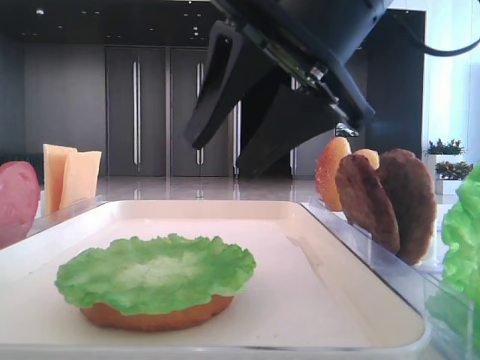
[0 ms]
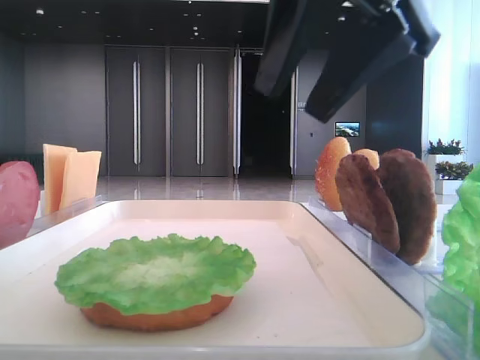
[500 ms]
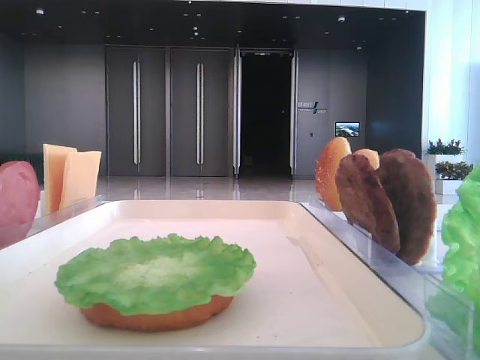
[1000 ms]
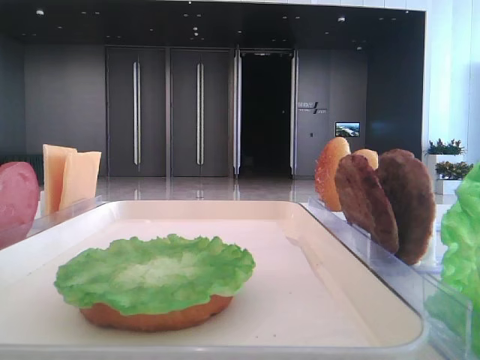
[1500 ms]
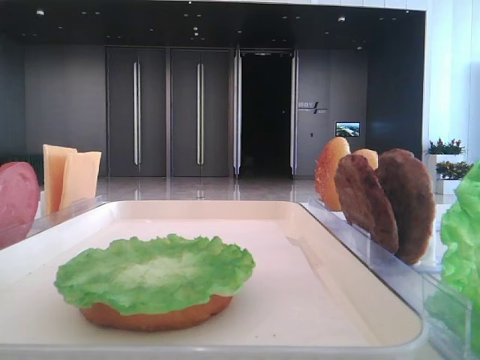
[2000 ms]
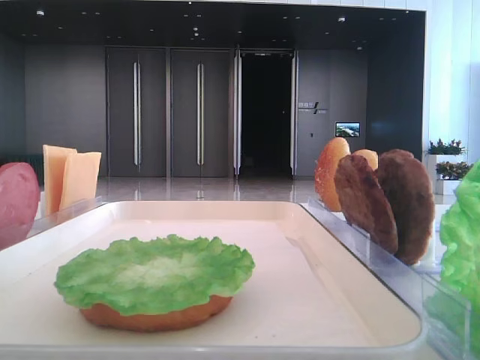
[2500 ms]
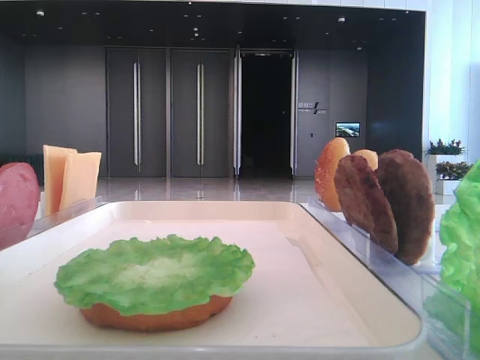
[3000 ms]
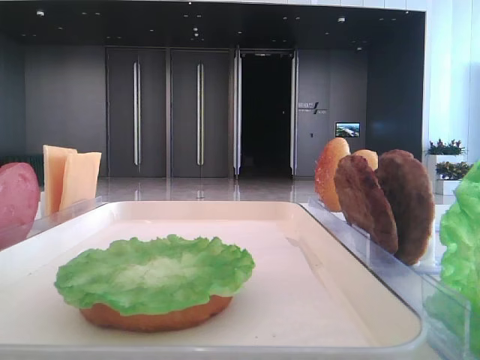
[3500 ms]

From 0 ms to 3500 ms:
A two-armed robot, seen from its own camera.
From 0 ms to 2000 ms: The right gripper heads to the right, covering some 25 cm.

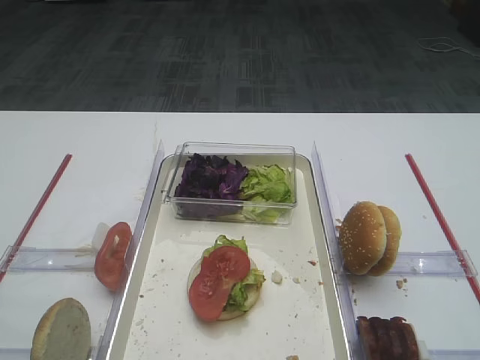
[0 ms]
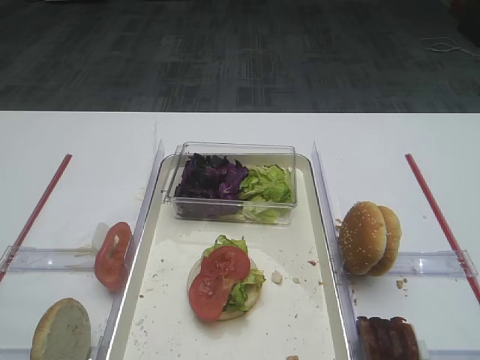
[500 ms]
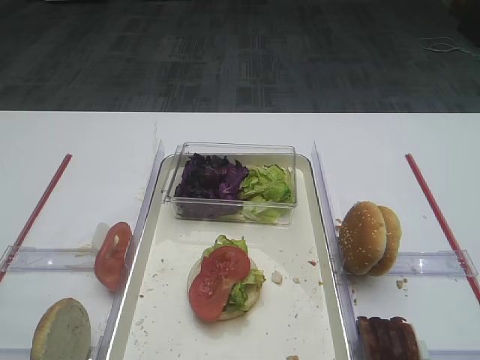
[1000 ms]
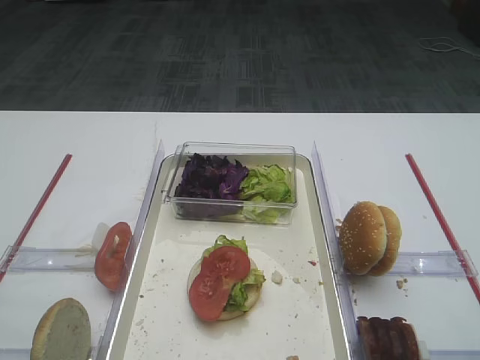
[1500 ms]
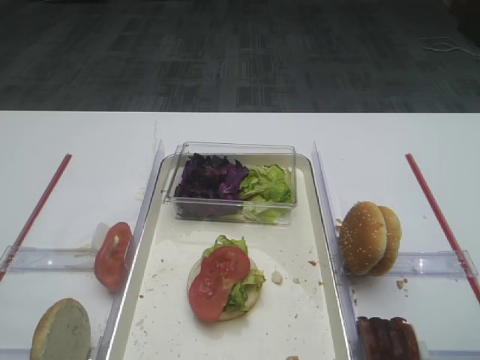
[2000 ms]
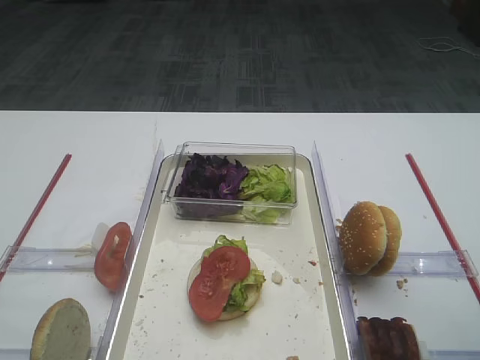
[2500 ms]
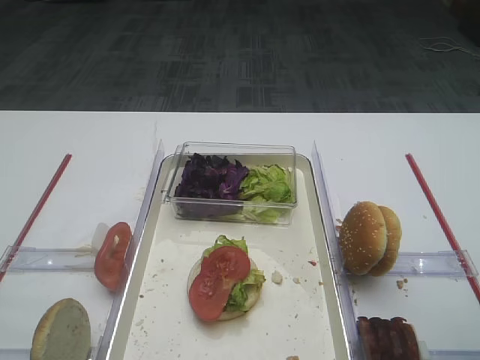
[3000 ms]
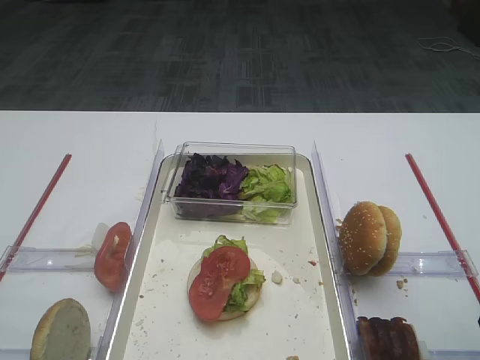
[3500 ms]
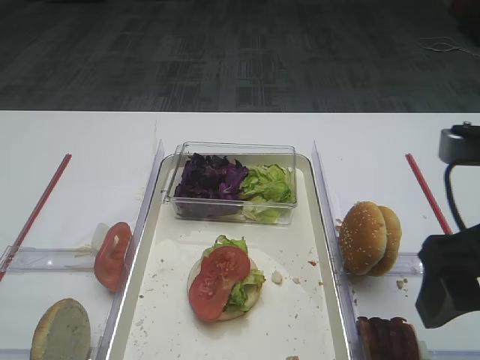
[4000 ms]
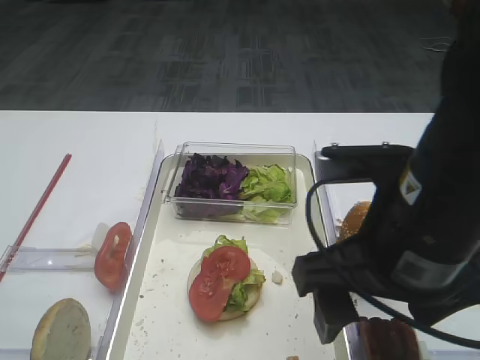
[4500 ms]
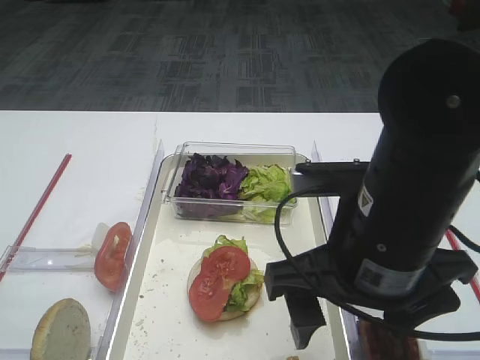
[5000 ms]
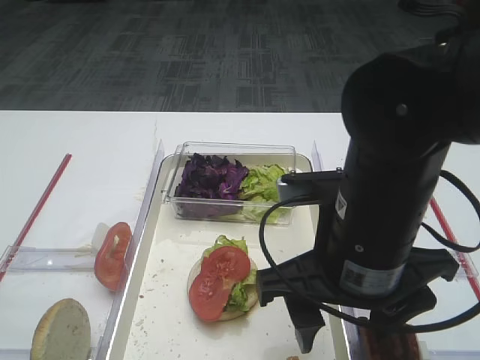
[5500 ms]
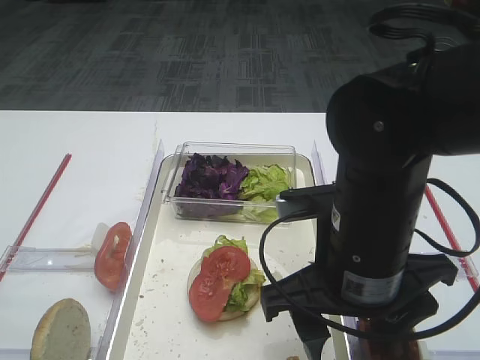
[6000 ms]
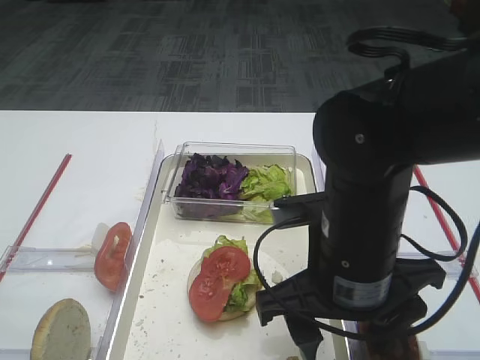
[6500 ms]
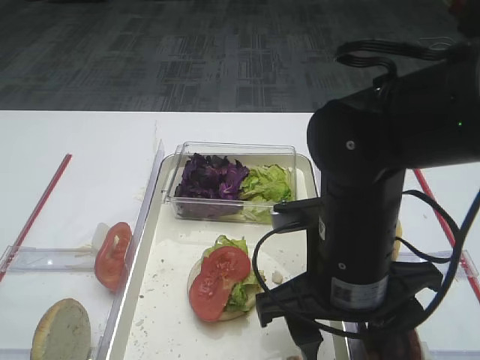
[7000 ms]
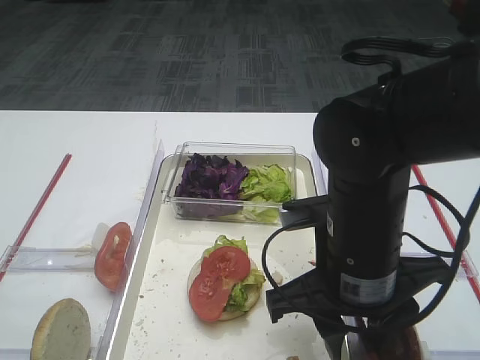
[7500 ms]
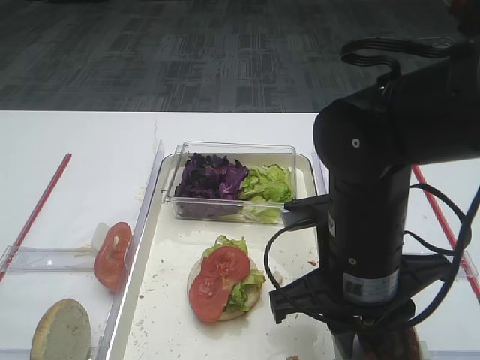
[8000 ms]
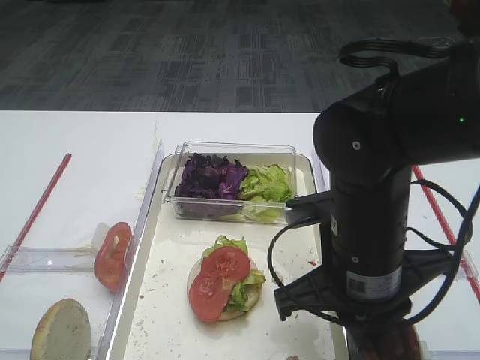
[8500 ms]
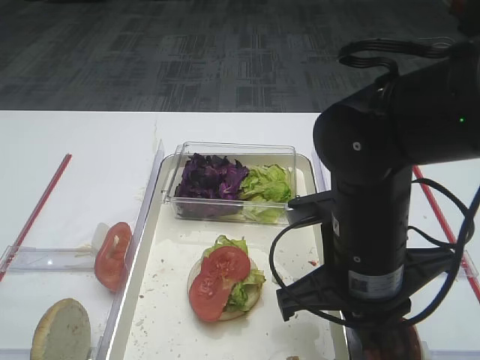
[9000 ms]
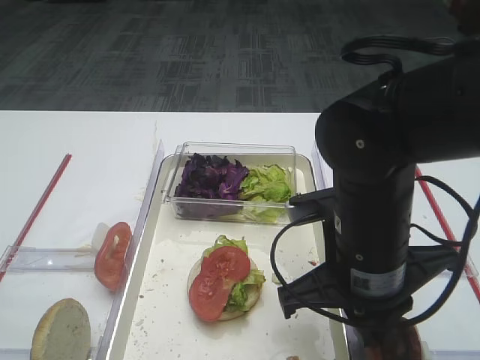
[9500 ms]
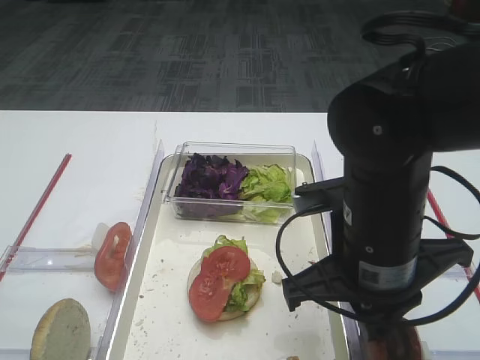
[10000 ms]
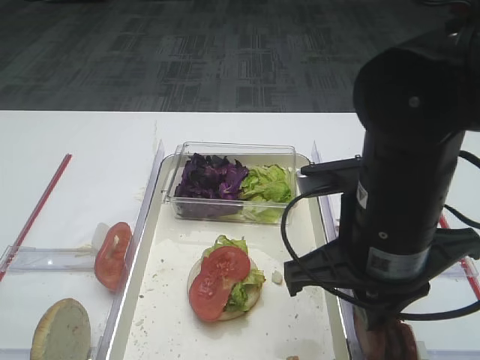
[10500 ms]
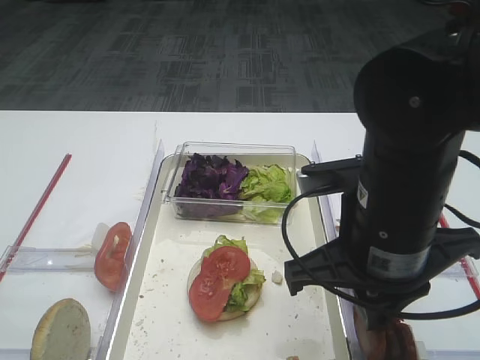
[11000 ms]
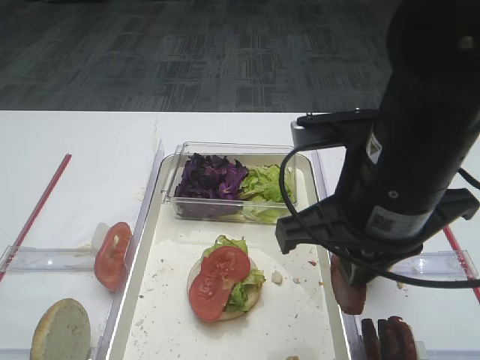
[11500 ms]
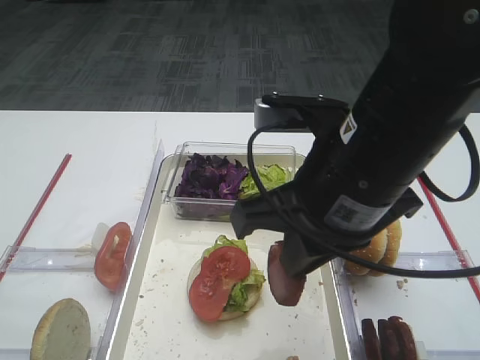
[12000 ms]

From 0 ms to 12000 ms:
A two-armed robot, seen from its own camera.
Step, from 0 ms to 10500 ms: Pick up the cutlet with the right gripper.
From 2000 ms to 4000 ms: The right gripper moves to the left, some 5 cm.
From 4000 ms to 6000 ms: The right gripper goes approximately 15 cm to the left and downward.
From 6000 ms to 8000 ms: The right gripper closes.
From 8000 ms to 10000 ms: There are only small adjustments of the grippers.
From 10000 ms to 12000 ms: The right gripper is displaced upward by some 5 cm.

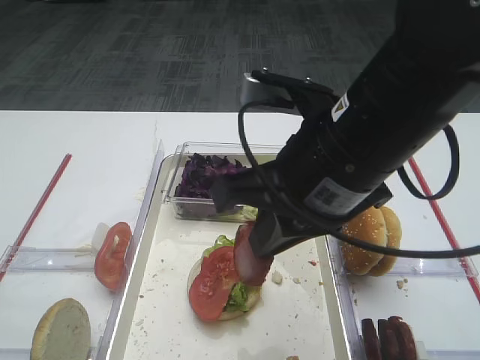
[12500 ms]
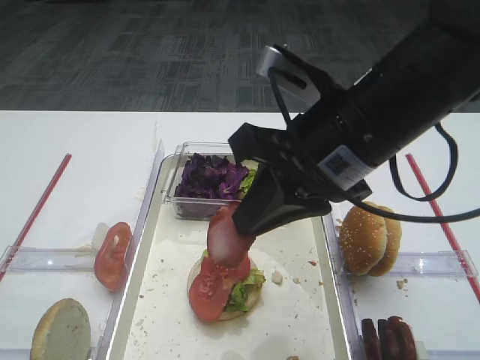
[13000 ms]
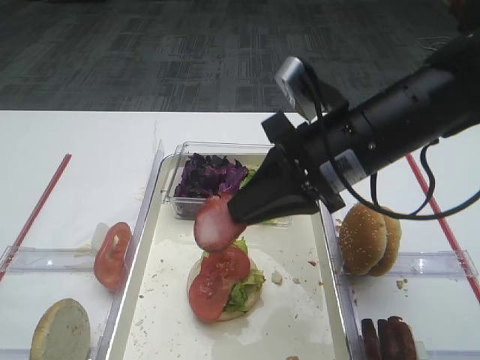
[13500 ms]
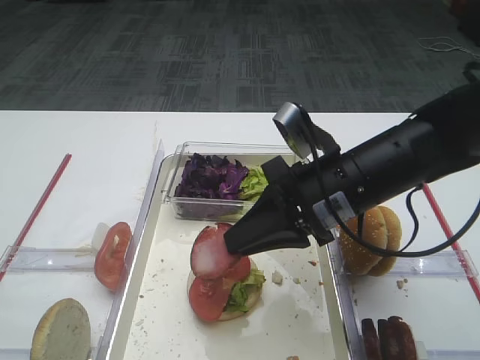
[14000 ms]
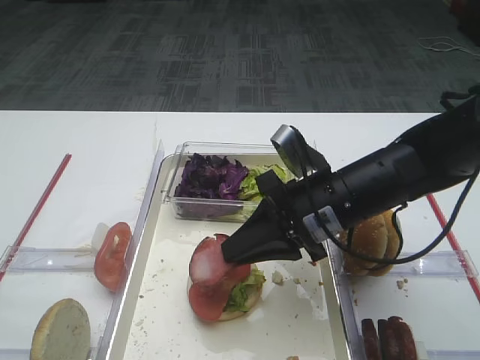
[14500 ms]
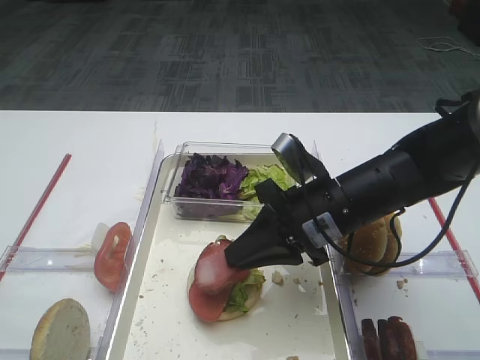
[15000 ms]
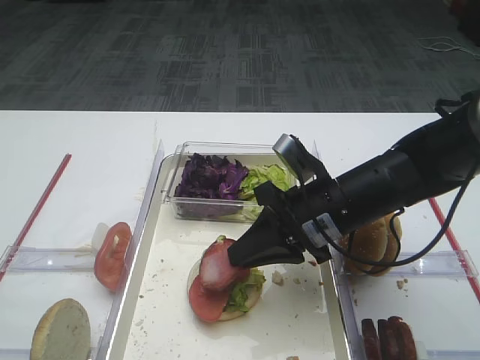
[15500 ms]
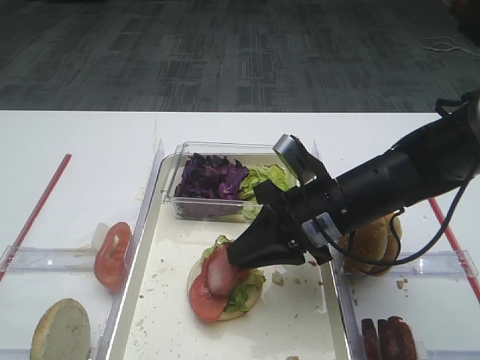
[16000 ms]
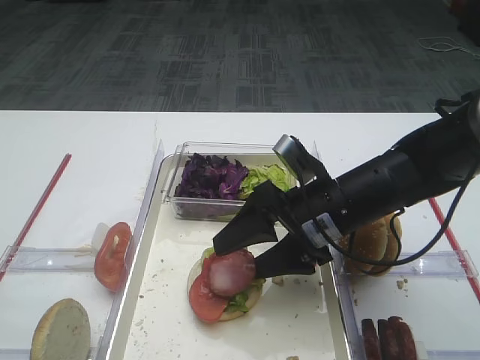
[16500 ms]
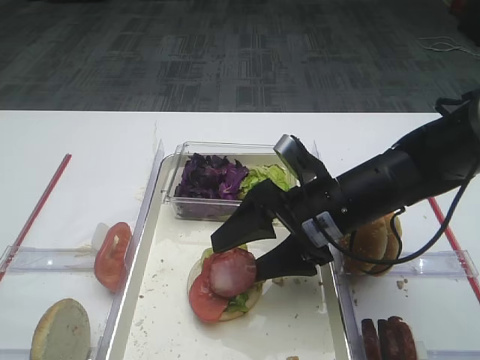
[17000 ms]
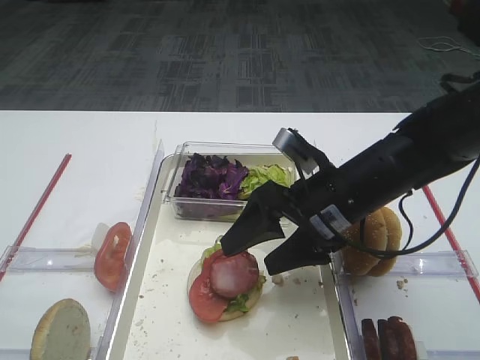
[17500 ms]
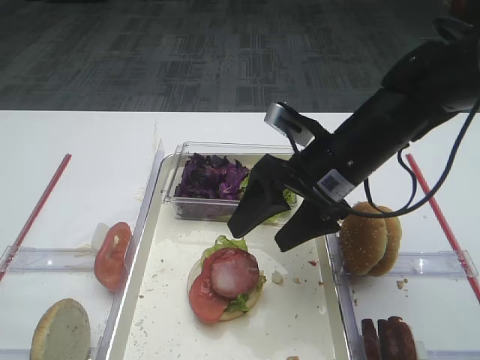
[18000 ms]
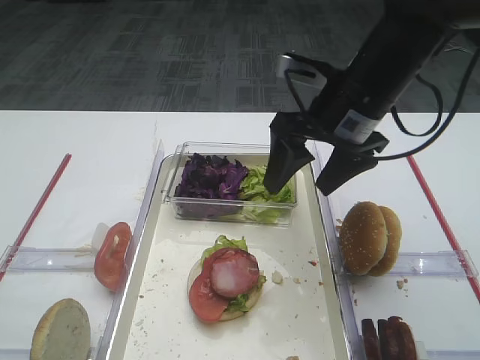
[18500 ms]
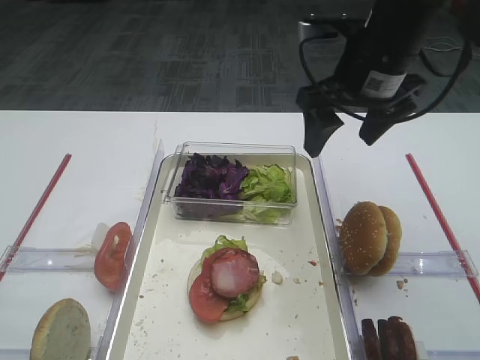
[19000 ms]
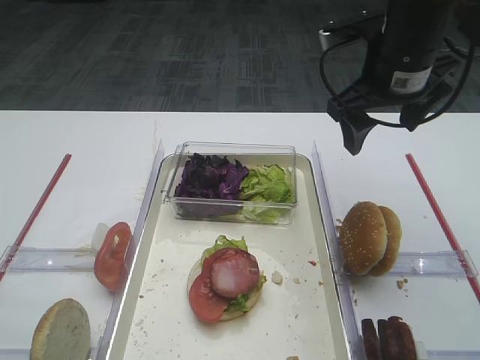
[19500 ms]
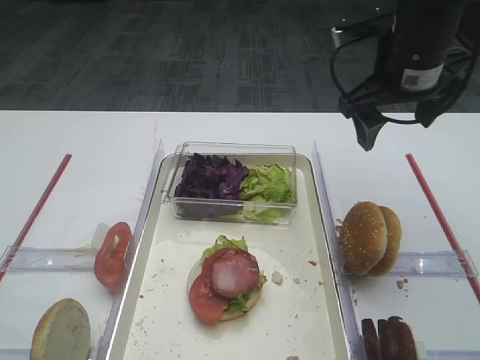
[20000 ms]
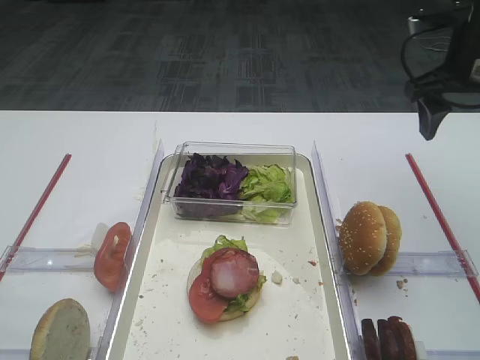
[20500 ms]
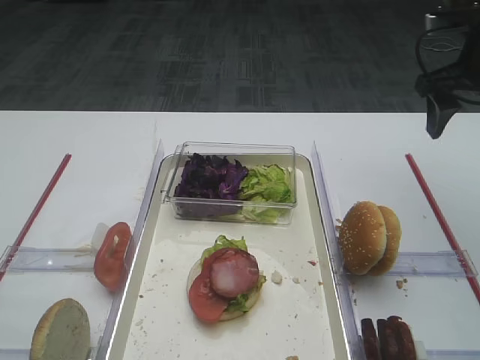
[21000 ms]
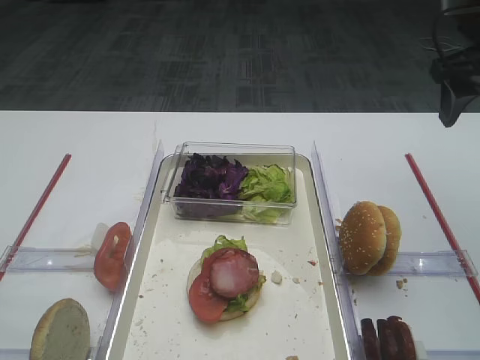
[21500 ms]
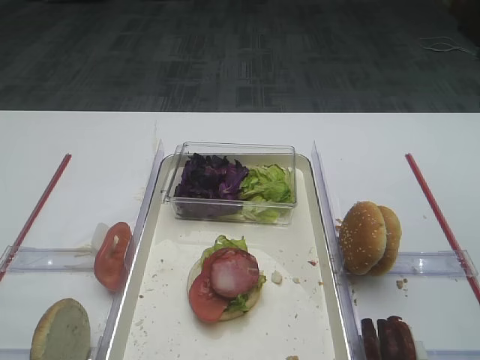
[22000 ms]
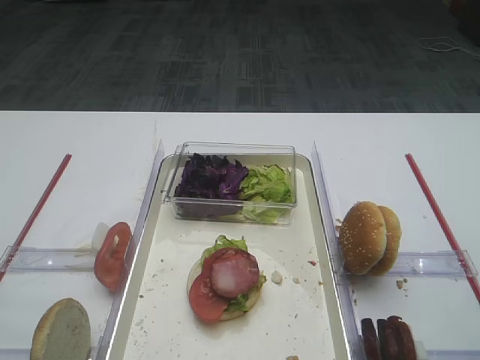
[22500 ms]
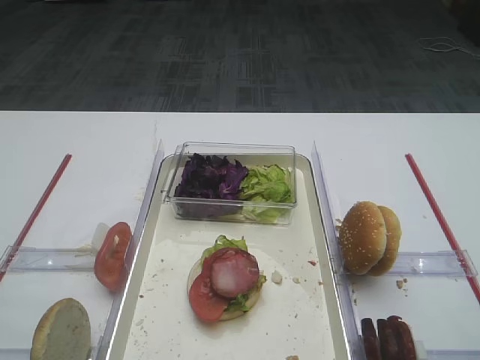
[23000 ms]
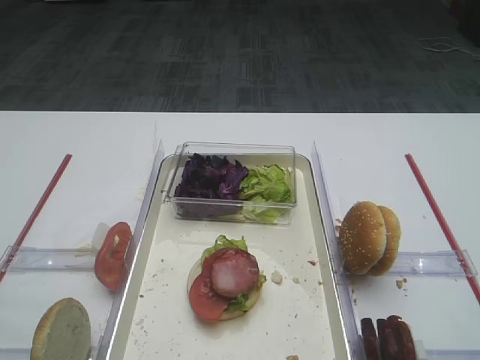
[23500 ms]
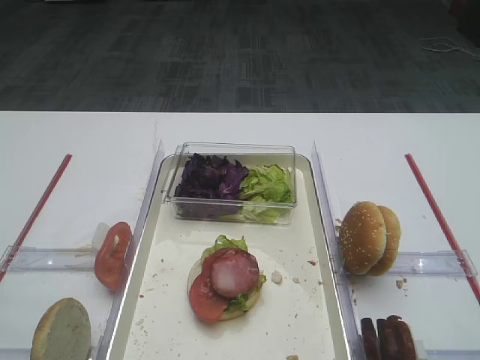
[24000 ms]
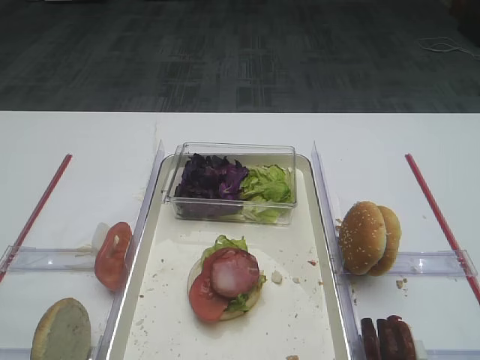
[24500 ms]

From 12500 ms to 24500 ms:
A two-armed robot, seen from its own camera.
Step, from 12500 ms to 17500 ms: Place the cutlet on the tomato slice with the right gripper.
From 12500 ms to 14500 ms: The right gripper heads downward and forward, covering some 15 cm.
From 14500 ms to 16500 ms: The right gripper opens its fingers.
From 16500 ms to 18500 ms: The right gripper heads upward and forward, covering approximately 10 cm.
From 18500 ms to 20500 ms: The right gripper heads to the right, covering some 15 cm.
From 20500 ms to 22500 ms: The right gripper travels backward by some 25 cm.
